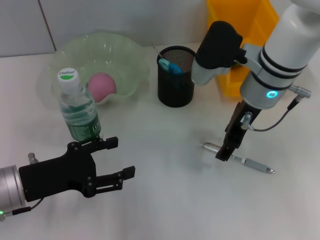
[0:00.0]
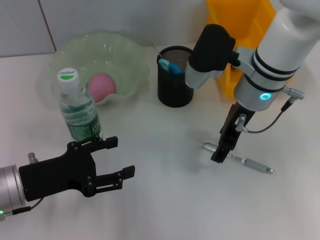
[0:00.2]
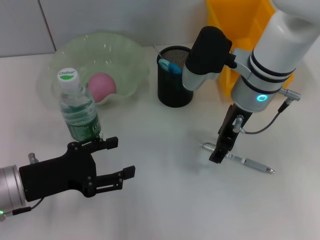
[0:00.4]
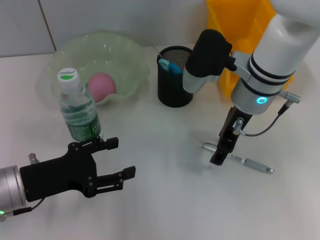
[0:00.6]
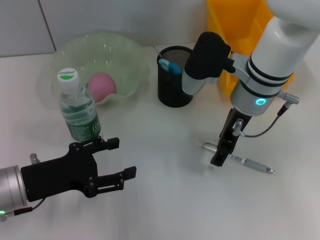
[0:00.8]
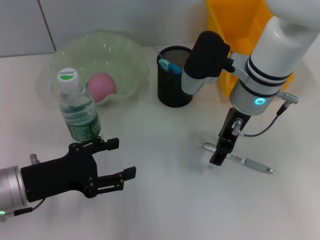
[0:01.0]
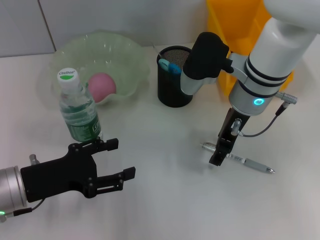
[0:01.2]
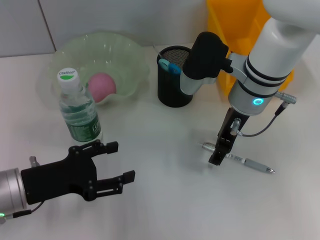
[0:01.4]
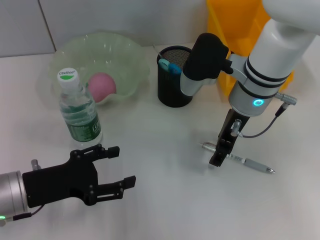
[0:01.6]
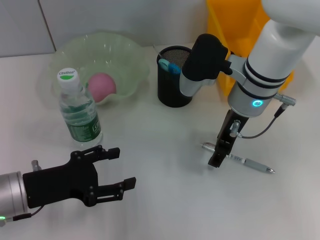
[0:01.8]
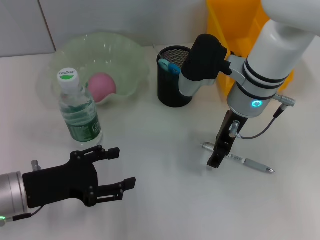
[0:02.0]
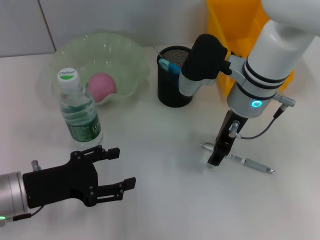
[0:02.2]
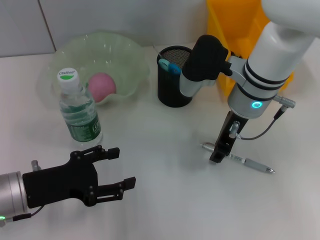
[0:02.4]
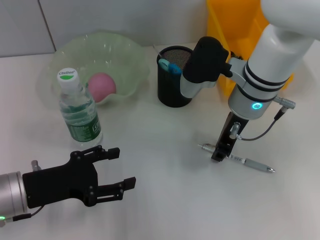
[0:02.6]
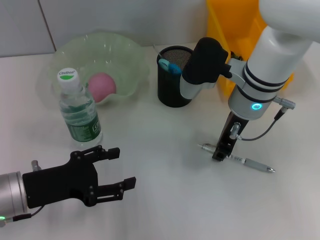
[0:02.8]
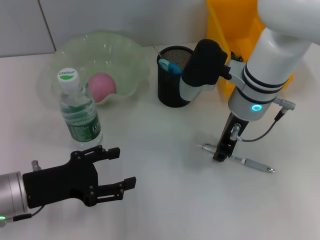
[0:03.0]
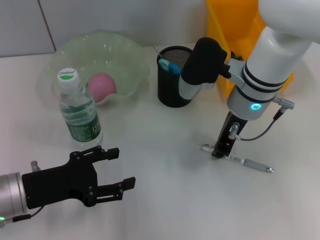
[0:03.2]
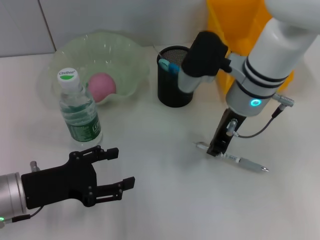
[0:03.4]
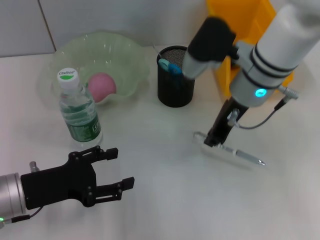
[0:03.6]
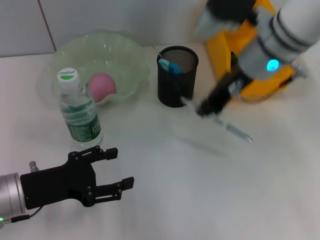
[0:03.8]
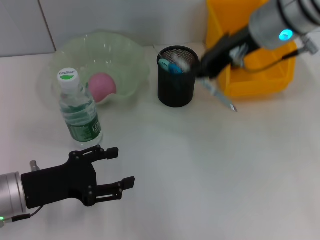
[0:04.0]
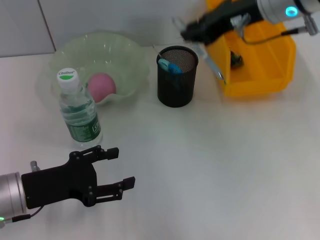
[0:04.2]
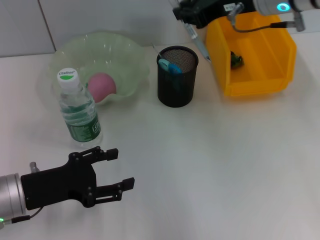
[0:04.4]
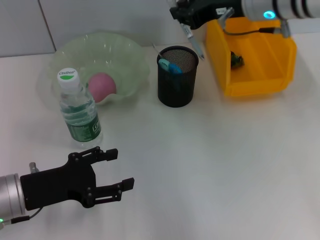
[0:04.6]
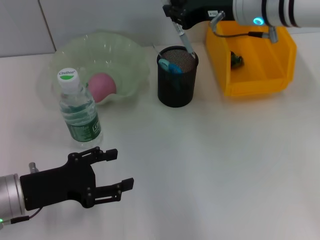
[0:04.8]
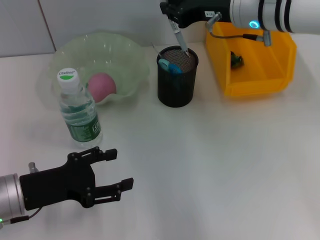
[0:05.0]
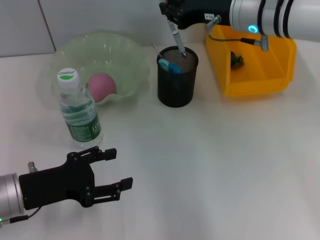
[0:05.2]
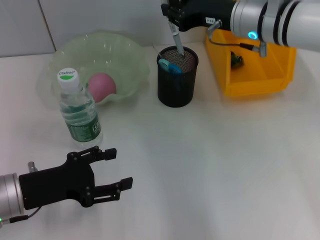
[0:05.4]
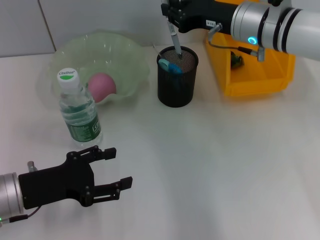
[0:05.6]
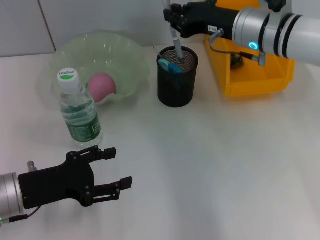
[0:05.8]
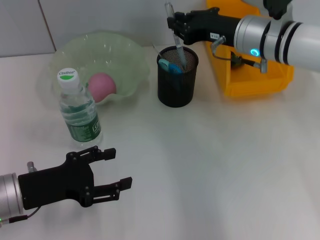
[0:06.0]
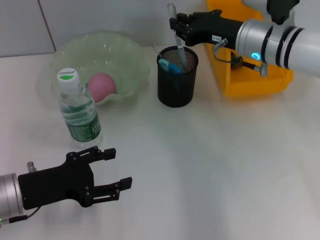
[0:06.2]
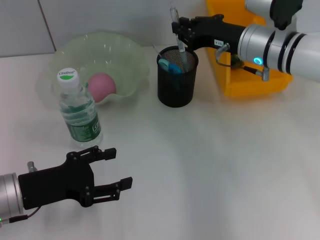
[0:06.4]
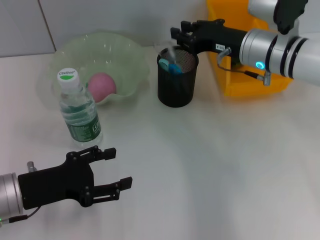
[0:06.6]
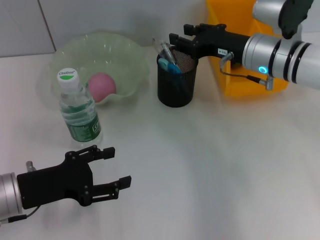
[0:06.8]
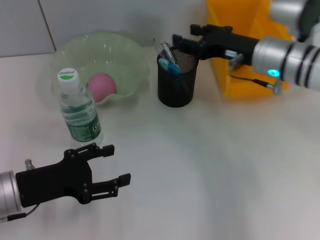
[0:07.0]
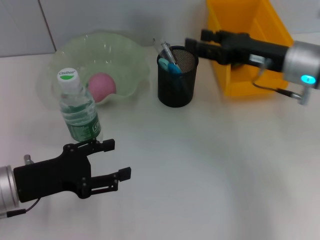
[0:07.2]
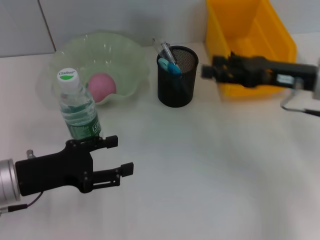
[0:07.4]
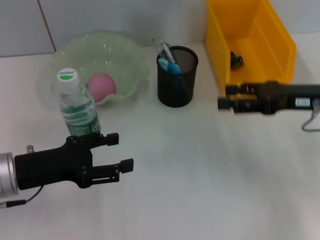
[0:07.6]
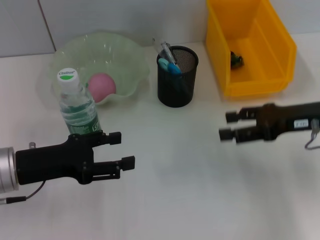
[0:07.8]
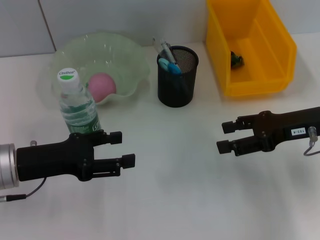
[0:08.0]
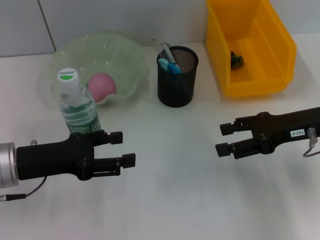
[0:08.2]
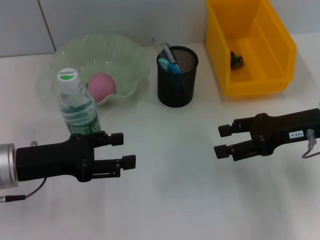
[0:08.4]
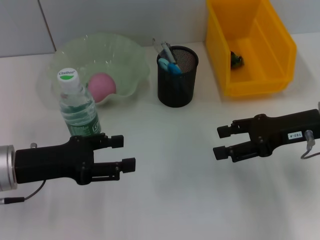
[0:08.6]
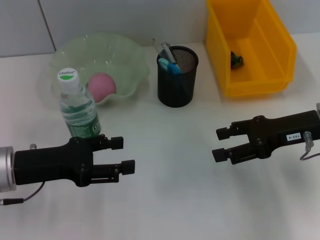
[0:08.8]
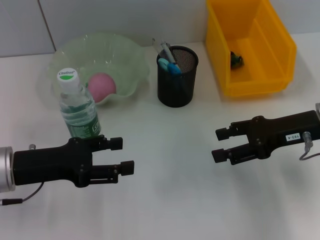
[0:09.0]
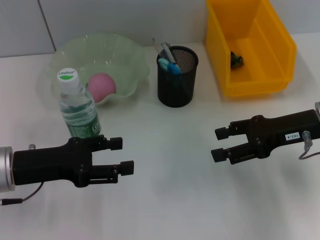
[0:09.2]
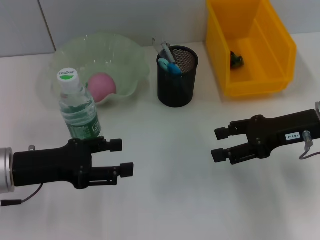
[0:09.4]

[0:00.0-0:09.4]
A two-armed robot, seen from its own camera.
Step, 0:00.0 to 0:03.0: Grab the gray spring-action pen with the right hand.
Step, 0:03.2 to 0:06.6: Place the gray spring-action pen into the pen holder with the right hand.
0:00.0 to 0:01.6: The grippers move only a little.
0:01.6 to 0:03.2: The right gripper closes up.
0:03.2 to 0:04.8: The right gripper heads upward, covering roughly 10 cm.
0:04.8 to 0:06.2: The right gripper is displaced downward by about 5 cm.
0:06.2 to 0:07.8: The right gripper goes approximately 15 cm to the right and backward, and opens.
0:07.8 to 0:09.4: The grippers make only small movements.
